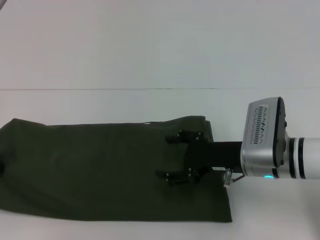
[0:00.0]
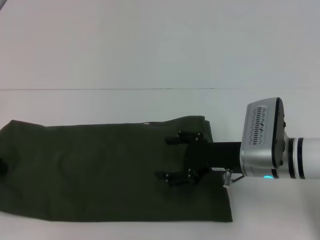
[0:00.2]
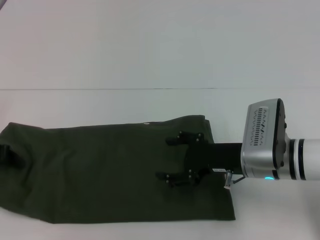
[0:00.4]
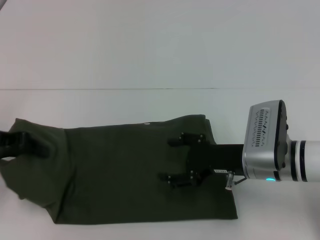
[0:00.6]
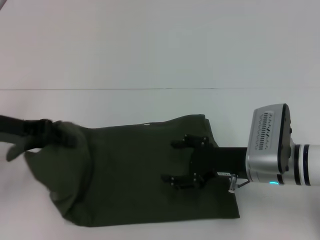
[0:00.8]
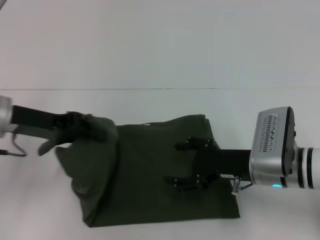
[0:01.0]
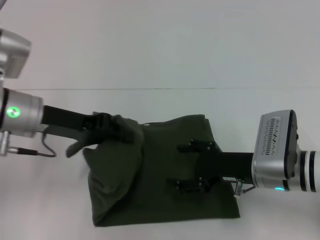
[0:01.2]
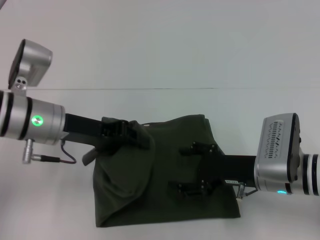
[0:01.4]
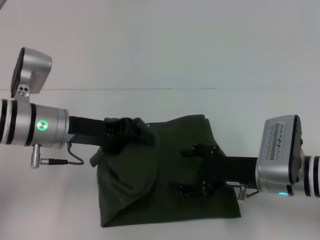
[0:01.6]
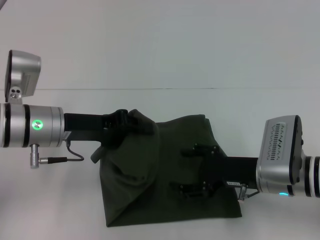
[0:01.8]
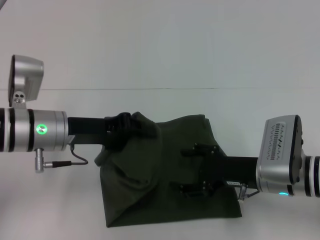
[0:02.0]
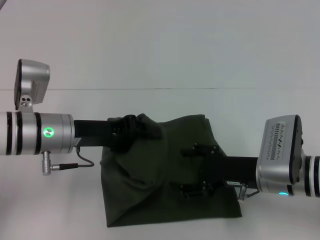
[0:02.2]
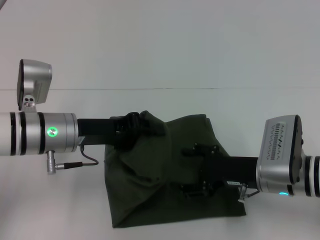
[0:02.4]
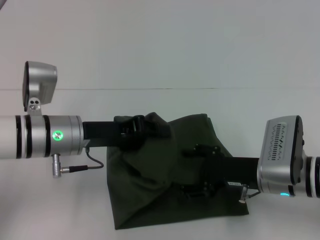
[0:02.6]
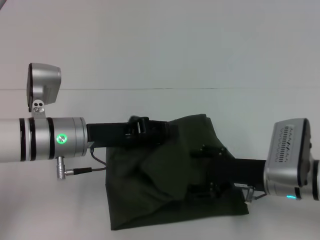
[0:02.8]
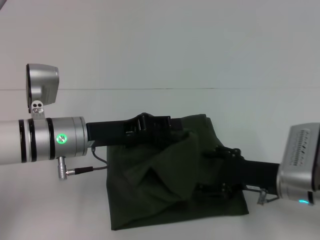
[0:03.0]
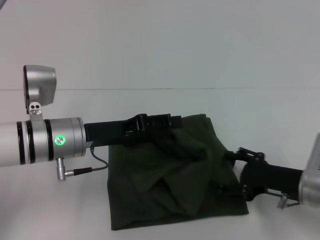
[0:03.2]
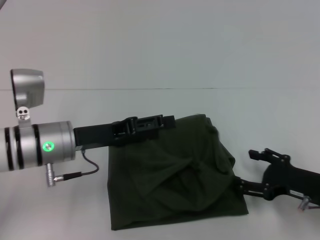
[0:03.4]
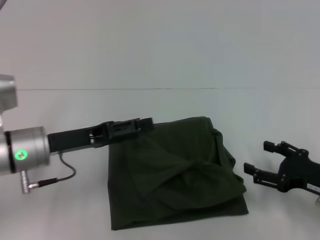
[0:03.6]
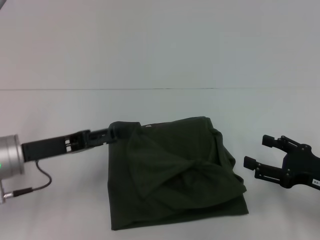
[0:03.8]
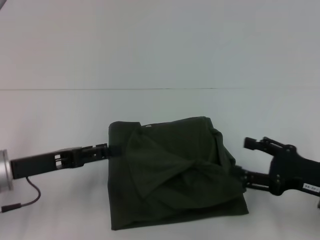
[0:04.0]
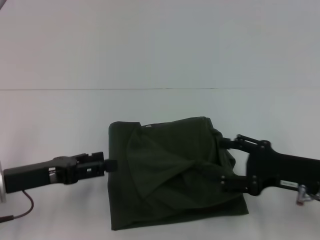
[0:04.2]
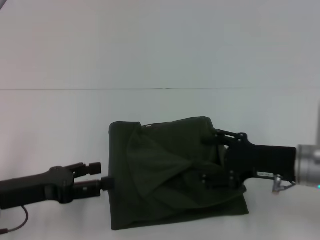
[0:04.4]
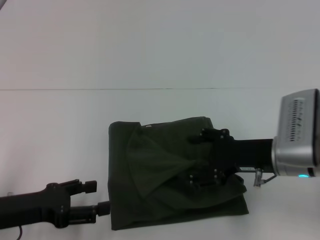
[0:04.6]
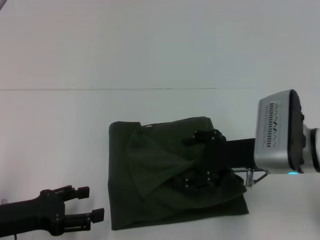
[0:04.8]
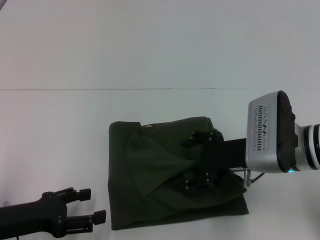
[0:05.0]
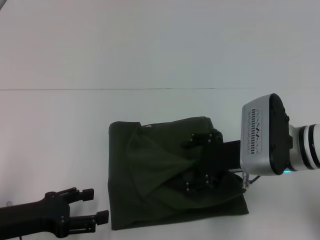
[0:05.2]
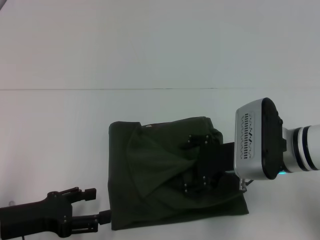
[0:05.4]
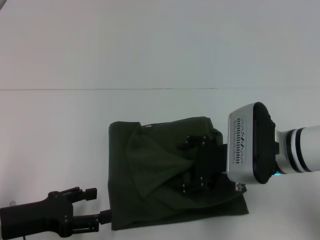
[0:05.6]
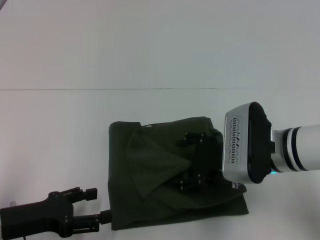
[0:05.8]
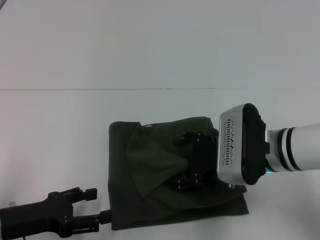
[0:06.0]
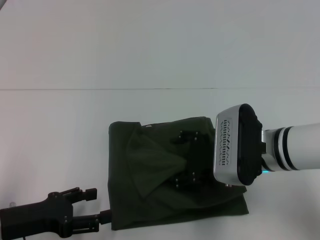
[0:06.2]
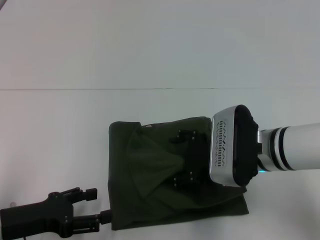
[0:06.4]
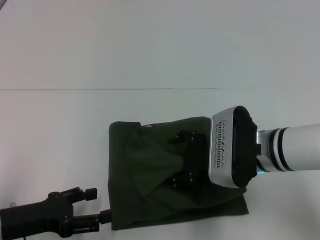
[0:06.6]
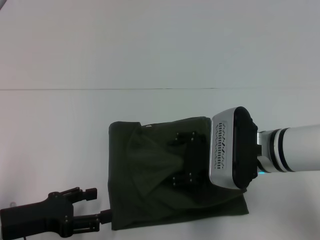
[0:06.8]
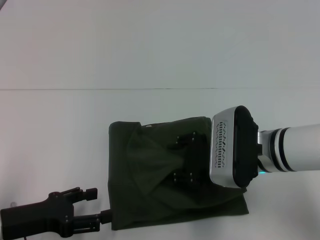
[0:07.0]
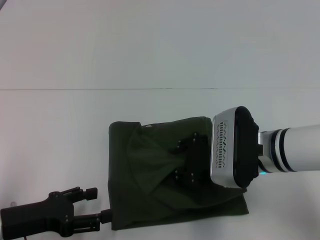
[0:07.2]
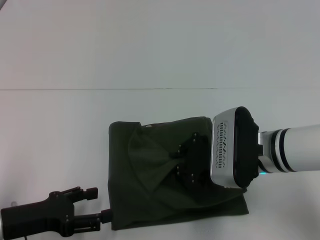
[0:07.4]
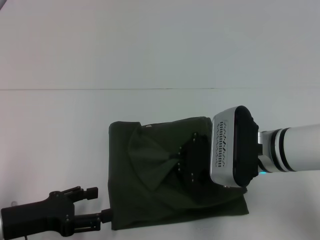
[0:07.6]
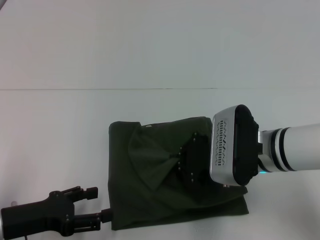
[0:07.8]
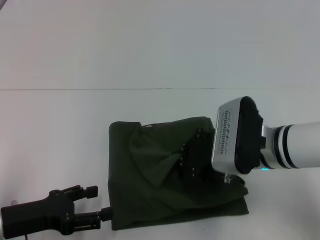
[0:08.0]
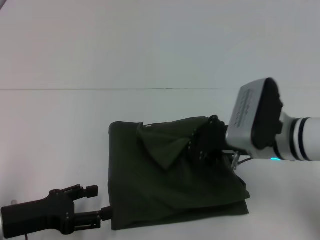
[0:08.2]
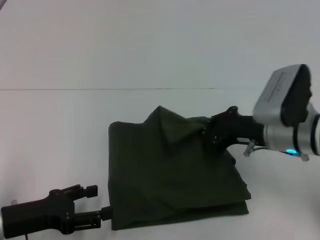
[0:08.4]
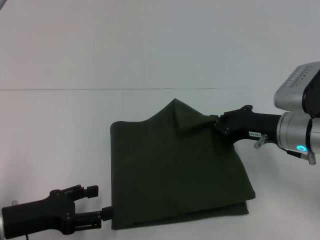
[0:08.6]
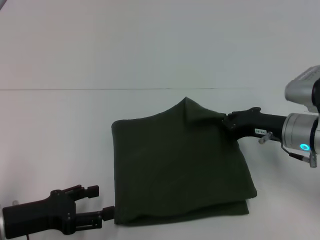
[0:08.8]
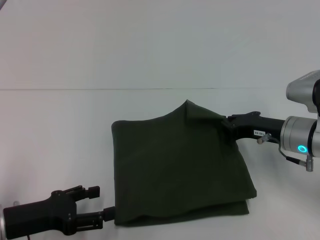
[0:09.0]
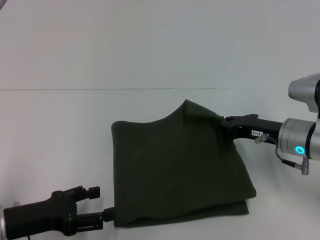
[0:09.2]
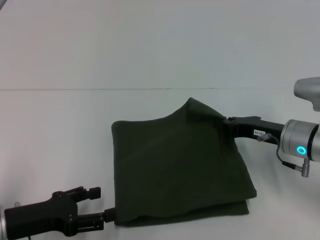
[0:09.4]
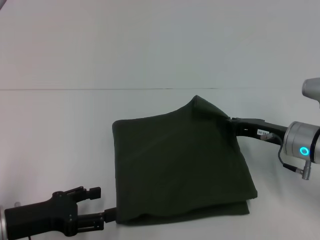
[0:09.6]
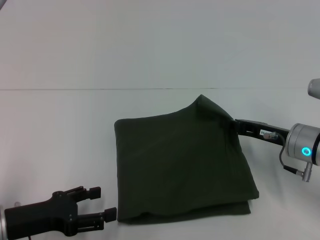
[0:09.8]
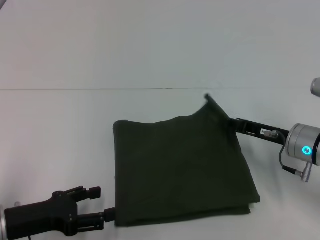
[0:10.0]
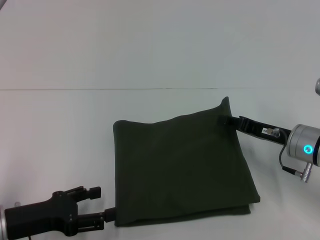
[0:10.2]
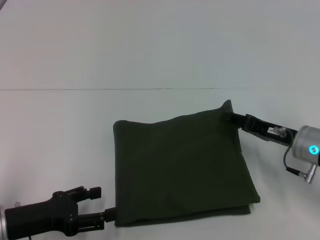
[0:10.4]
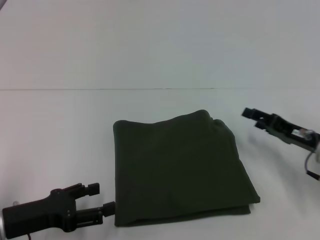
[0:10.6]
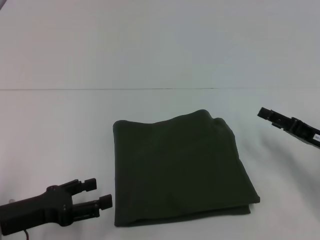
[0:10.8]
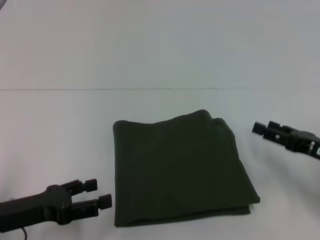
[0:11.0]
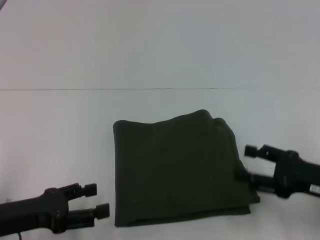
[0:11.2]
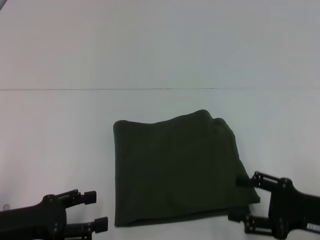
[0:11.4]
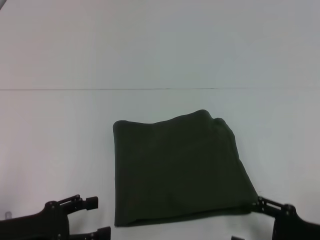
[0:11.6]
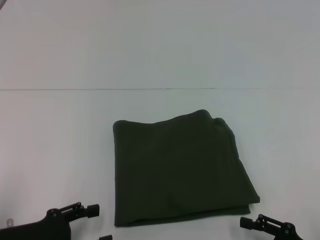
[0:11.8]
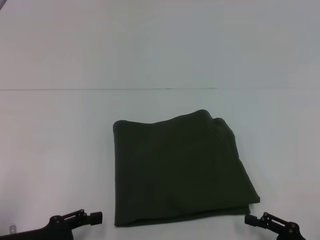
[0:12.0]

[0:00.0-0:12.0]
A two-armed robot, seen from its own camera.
Step, 0:00.0 to 0:10.4: Fold the clothes with your left hand.
0:00.0 to 0:01.6: The left gripper shifts approximately 20 cm to the right.
0:01.6 to 0:03.0: There are only small adjustments of the grippers.
0:03.0 to 0:04.4: The right gripper reaches about 10 cm to the right, then returns. The left gripper is displaced to the left and backward by about 15 cm, and opens its fingers.
0:04.4 to 0:06.0: The right gripper travels to the left by roughly 10 cm.
0:06.0 to 0:07.6: The right gripper closes up.
0:07.6 to 0:09.0: The right gripper heads to the right, covering about 10 cm.
0:10.4 to 0:12.0: The right gripper goes roughly 20 cm backward, and opens its fingers.

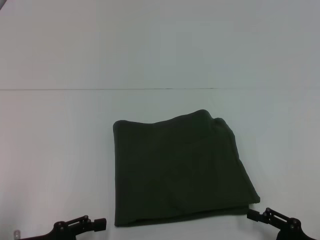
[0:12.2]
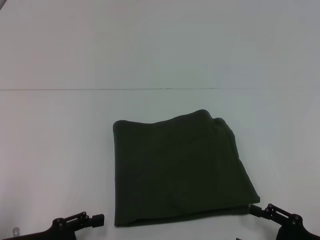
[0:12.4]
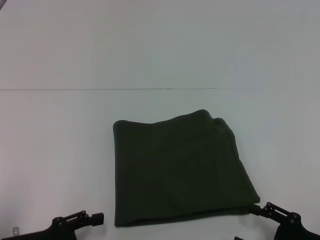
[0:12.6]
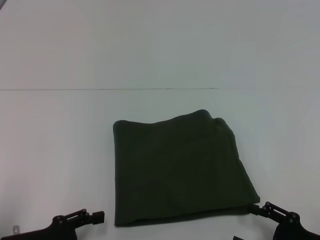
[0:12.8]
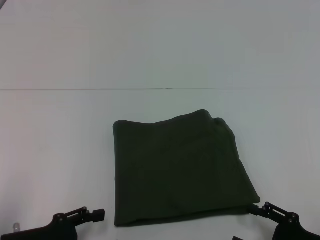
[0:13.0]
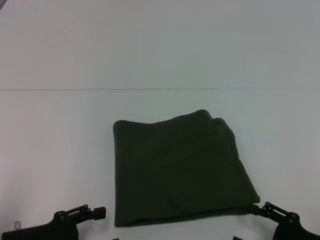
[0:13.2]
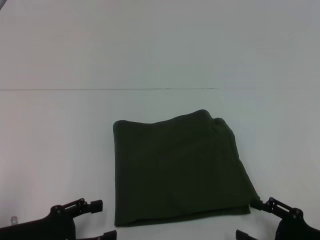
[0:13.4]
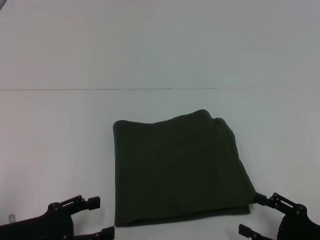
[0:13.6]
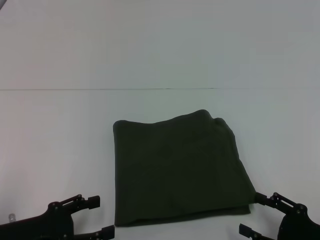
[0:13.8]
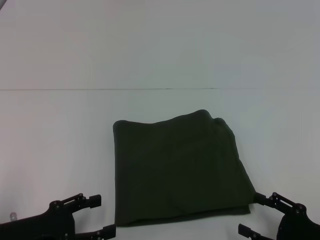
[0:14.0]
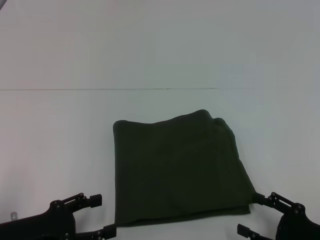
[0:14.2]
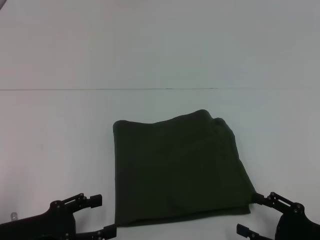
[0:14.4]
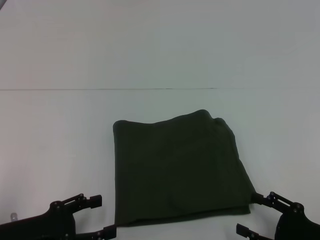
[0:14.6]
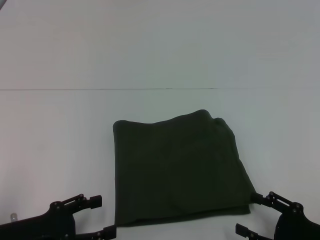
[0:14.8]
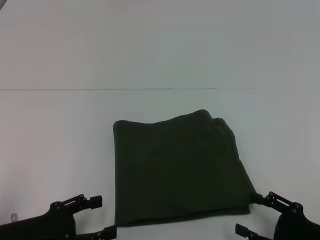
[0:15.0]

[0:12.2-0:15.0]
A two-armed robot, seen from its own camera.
0:12.2 to 0:13.6: The grippers move only a little.
0:13.6 to 0:15.0: Neither gripper changes place.

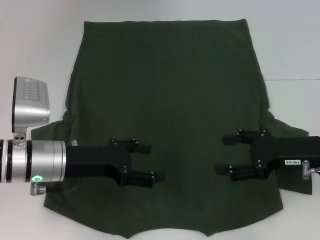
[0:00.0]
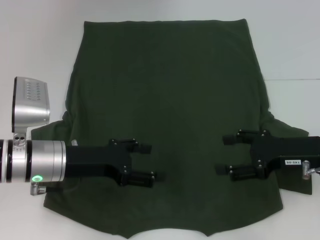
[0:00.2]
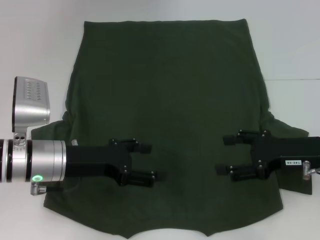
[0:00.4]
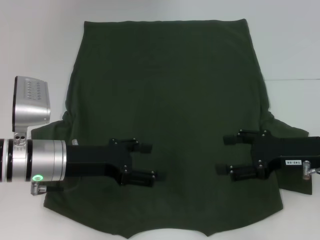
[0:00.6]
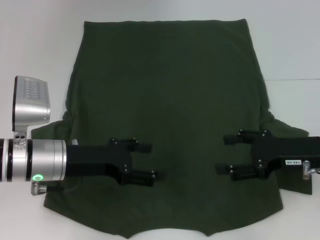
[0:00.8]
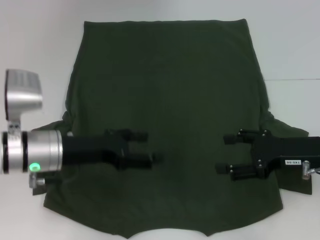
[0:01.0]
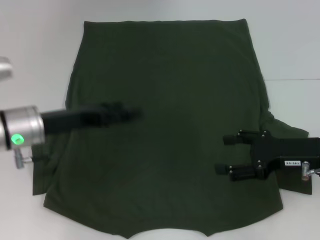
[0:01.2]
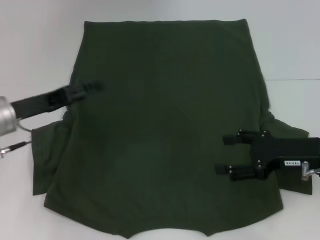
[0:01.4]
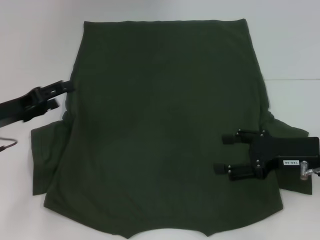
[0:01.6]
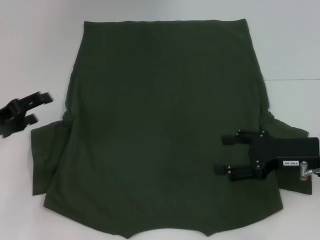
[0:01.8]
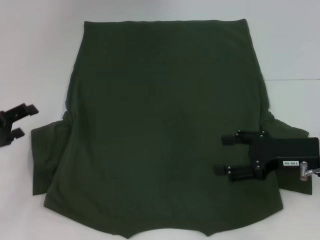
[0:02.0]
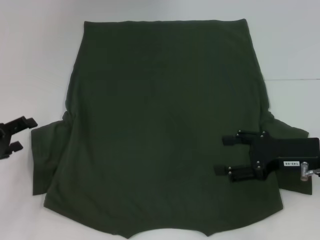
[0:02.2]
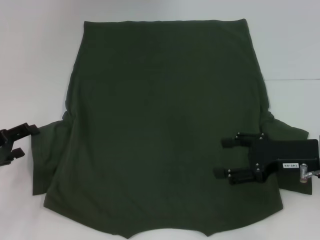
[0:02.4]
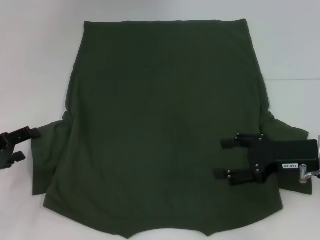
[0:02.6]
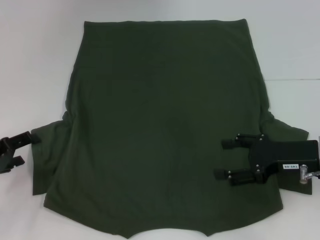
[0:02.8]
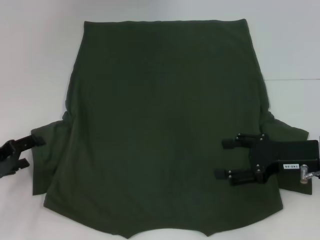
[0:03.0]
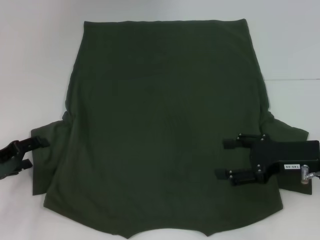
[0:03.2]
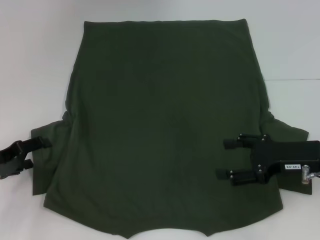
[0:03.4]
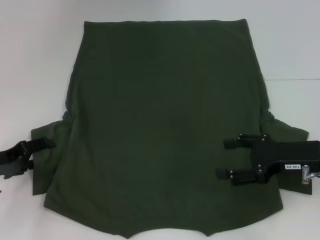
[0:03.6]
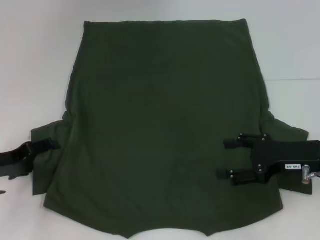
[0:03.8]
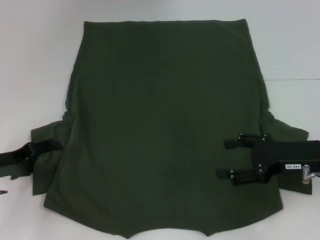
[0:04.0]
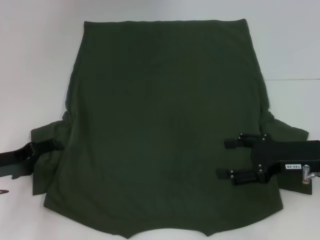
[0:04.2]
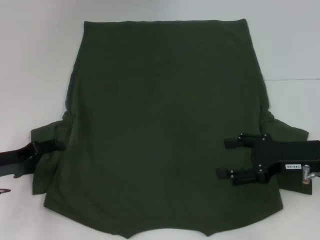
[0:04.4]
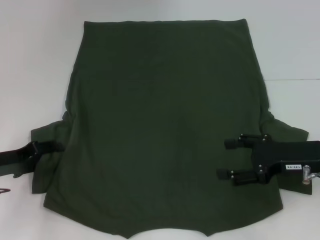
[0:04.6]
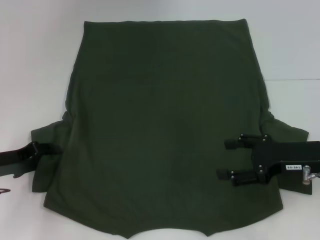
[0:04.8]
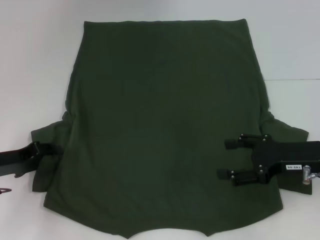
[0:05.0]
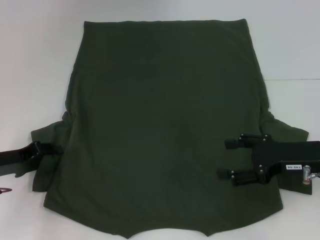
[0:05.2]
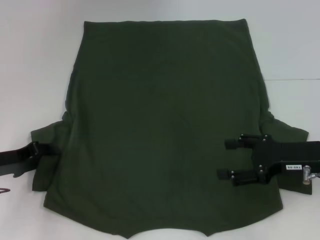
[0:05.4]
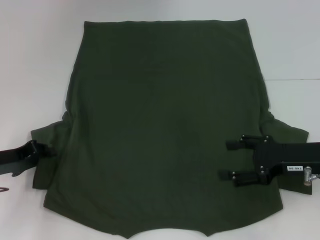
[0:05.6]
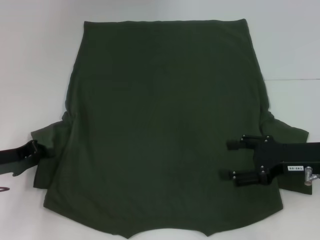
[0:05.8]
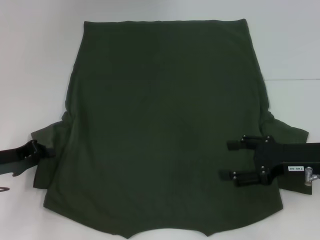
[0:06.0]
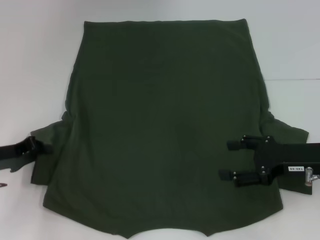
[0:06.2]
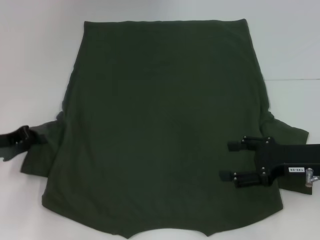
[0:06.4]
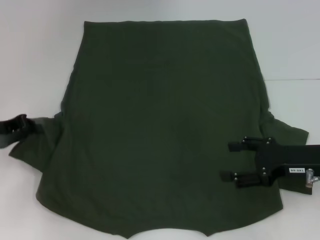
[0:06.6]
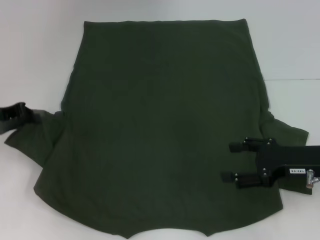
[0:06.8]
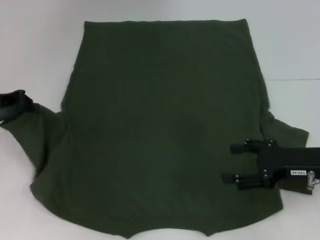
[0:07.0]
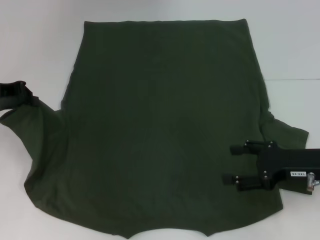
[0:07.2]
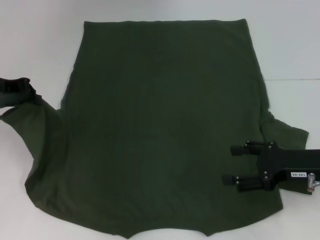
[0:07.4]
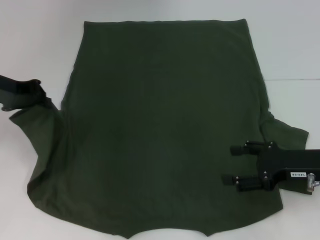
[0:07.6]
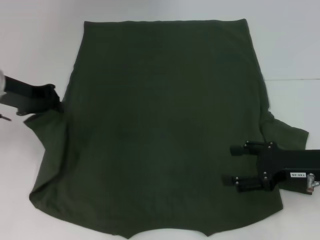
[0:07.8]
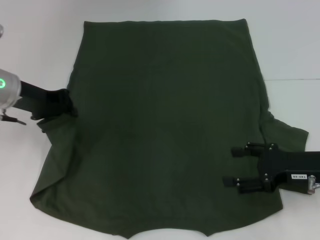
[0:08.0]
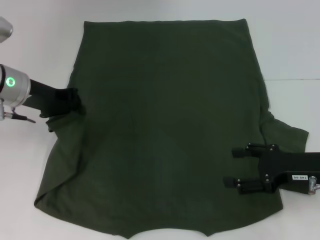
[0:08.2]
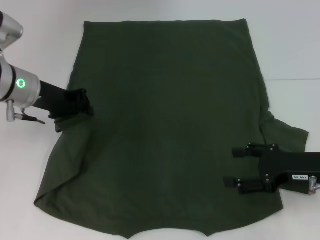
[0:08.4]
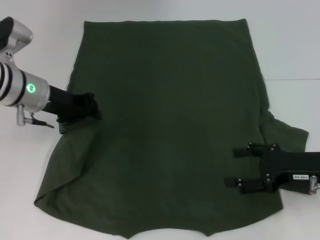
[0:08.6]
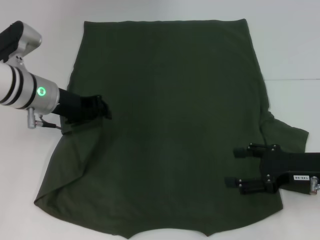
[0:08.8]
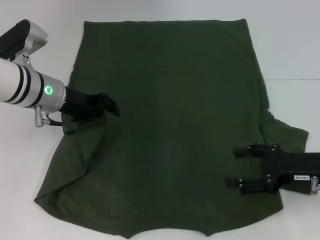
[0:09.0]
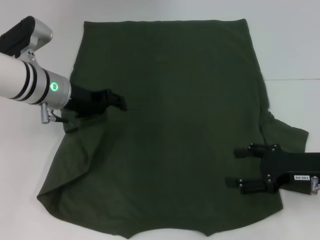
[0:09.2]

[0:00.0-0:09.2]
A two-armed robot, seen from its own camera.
0:00.0 to 0:01.6: The left gripper goes approximately 10 cm to the left.
0:01.6 to 0:03.0: The left gripper ends up approximately 5 cm from where it was.
0:03.0 to 0:04.6: There are only small adjustments of the grippers.
0:04.6 to 0:06.2: The left gripper closes.
0:06.2 to 0:07.6: The left gripper goes roughly 15 cm upward and forward.
0:07.6 to 0:09.2: The left gripper heads to the right, covering about 10 cm, and opens its fingers.
